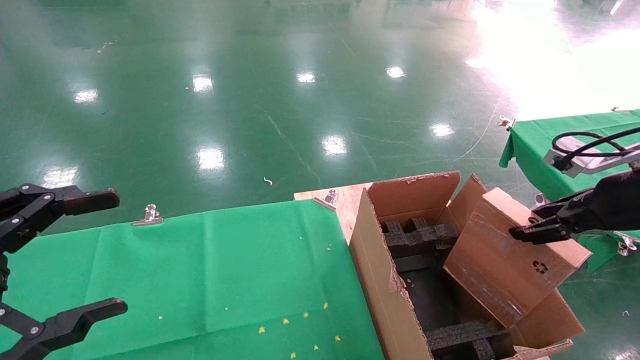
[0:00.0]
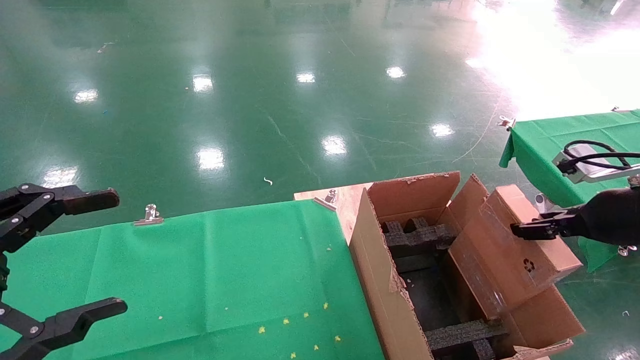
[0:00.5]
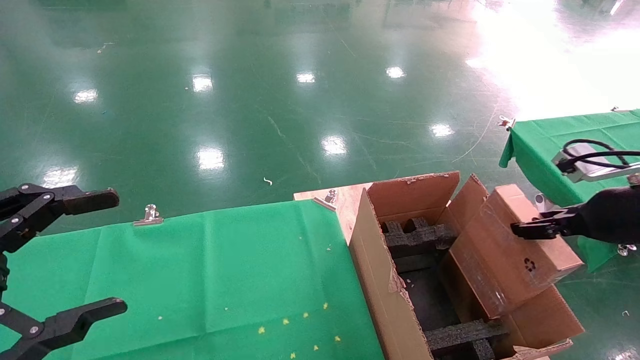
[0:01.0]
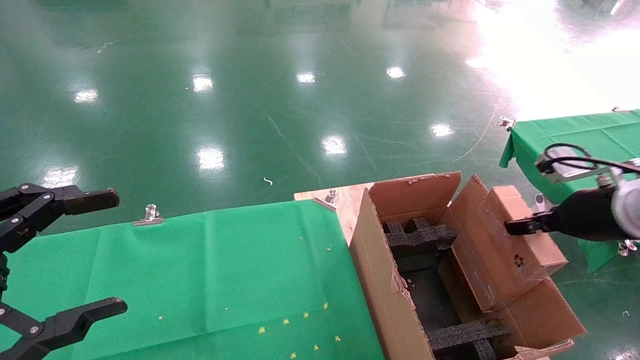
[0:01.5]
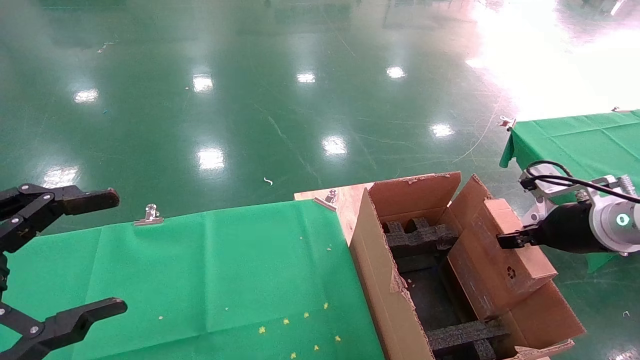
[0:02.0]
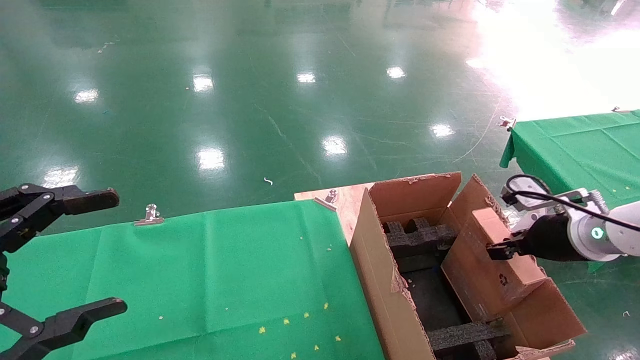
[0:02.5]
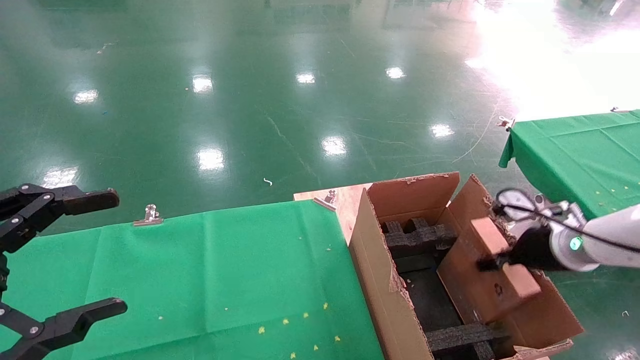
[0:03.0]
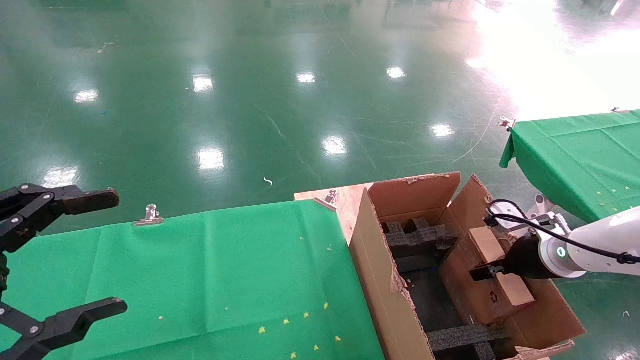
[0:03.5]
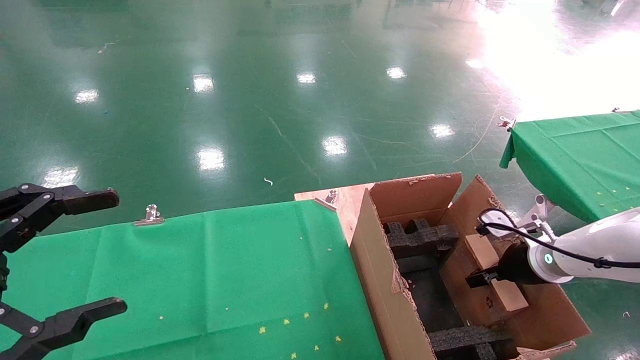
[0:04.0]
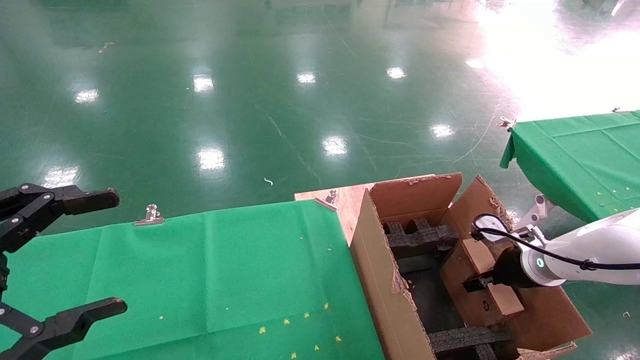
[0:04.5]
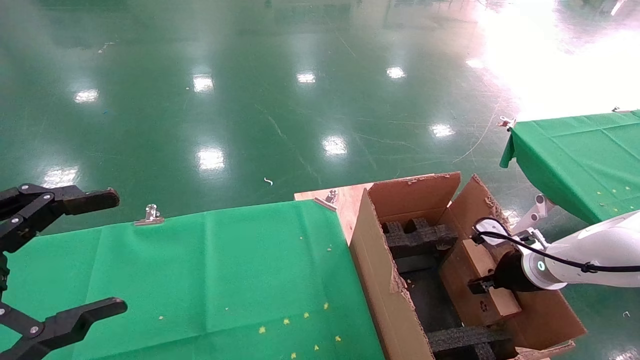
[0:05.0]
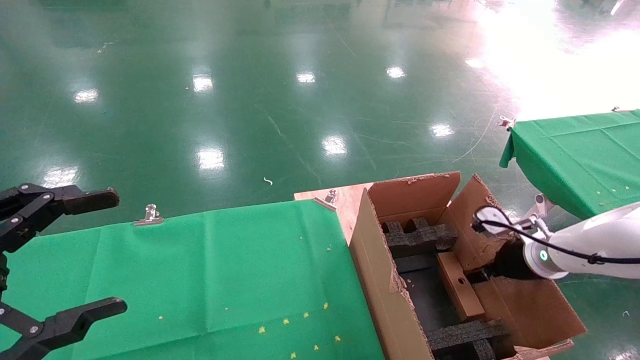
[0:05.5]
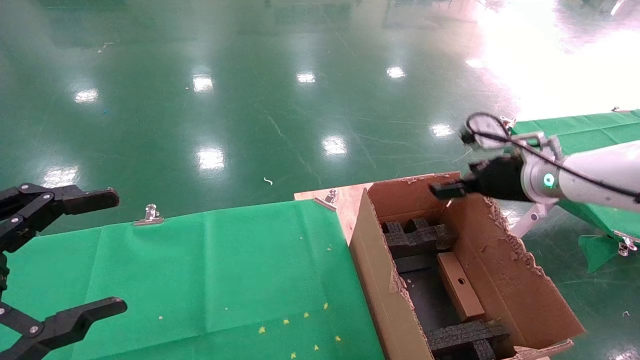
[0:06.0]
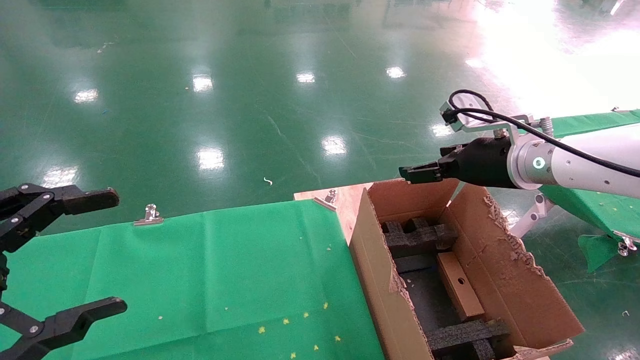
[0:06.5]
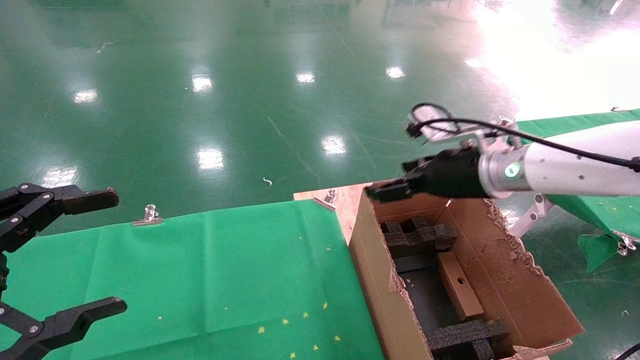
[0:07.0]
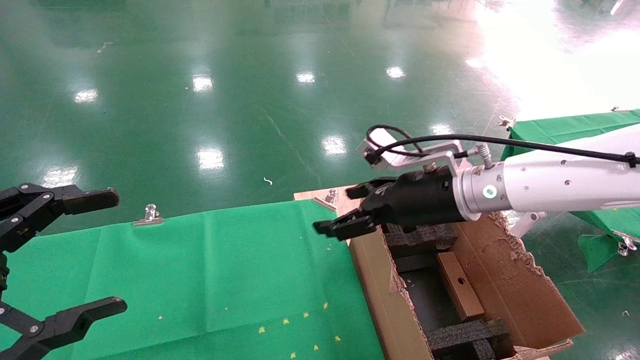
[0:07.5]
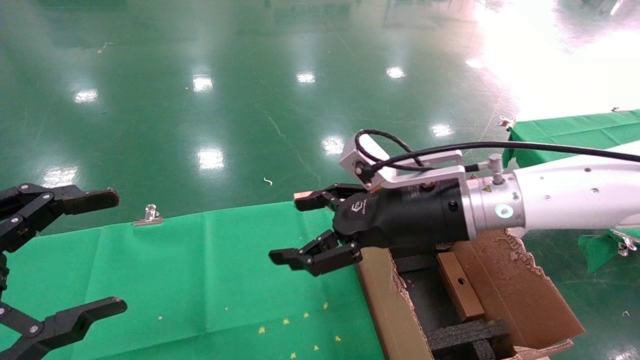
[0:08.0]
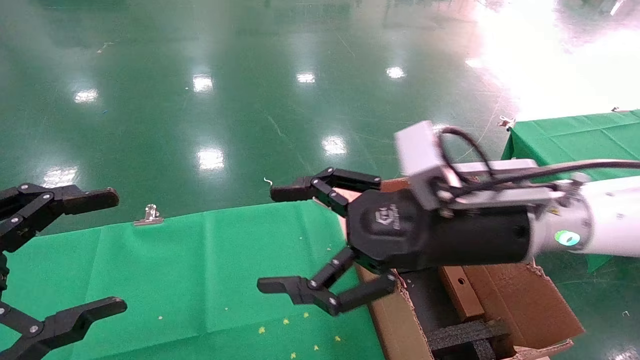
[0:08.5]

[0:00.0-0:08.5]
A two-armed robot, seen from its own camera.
Task of the whole recording: using a robotic arm to pick up a cardboard box and palace it the carton.
Step, 0:00.0 to 0:06.0: Place the mouse and the power cord paper box into the container.
0:00.0 to 0:02.0: The right gripper travels downward by roughly 10 cm.
0:02.0 to 0:04.0: The right gripper goes approximately 10 cm downward and forward.
0:04.0 to 0:06.5: The right gripper heads upward and to the left, covering approximately 20 cm, and opens its fingers.
0:06.5 to 0:08.5: The right gripper is displaced to the left and backward by about 15 cm.
